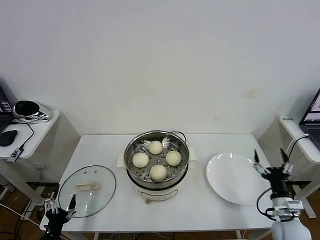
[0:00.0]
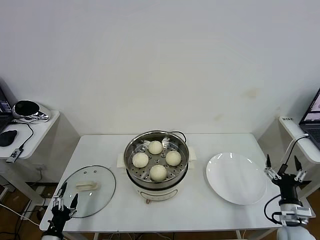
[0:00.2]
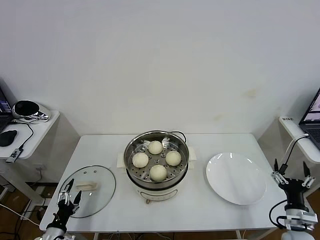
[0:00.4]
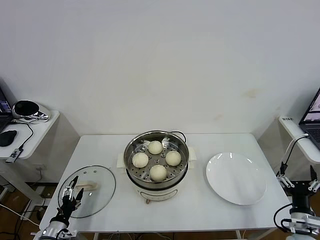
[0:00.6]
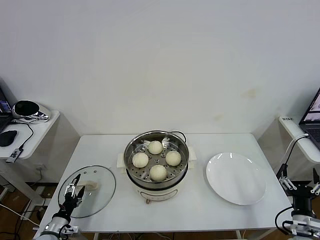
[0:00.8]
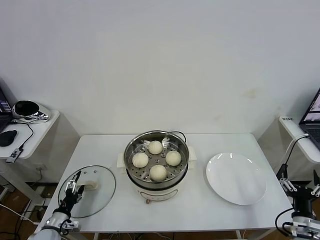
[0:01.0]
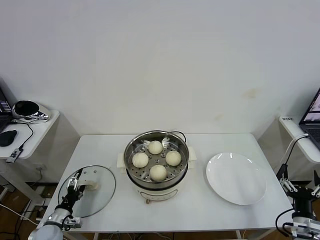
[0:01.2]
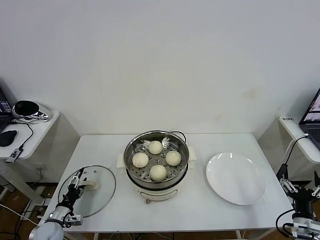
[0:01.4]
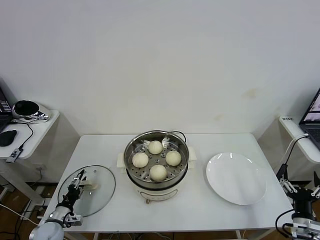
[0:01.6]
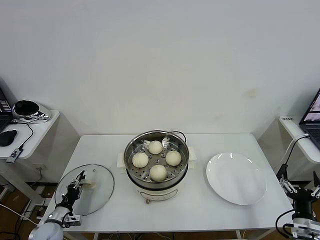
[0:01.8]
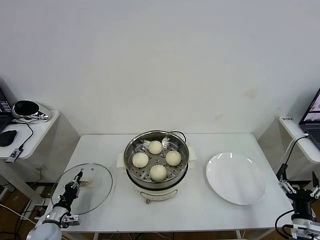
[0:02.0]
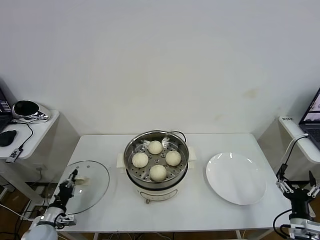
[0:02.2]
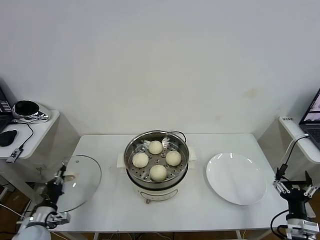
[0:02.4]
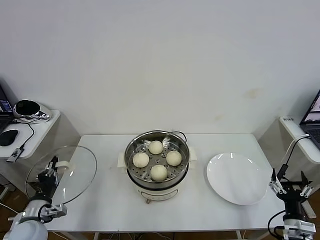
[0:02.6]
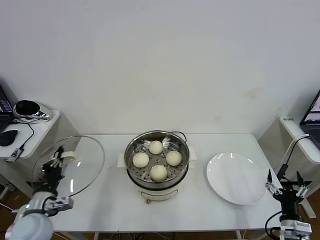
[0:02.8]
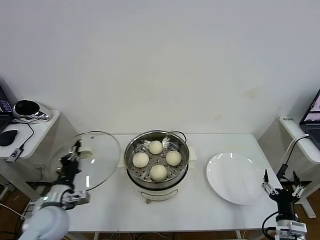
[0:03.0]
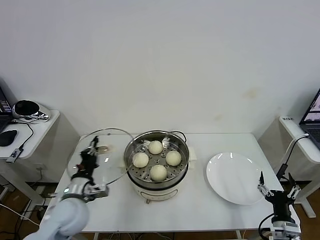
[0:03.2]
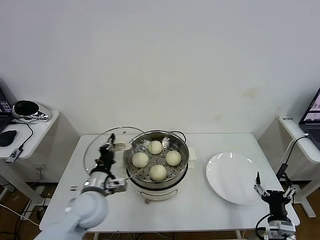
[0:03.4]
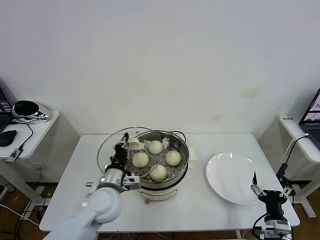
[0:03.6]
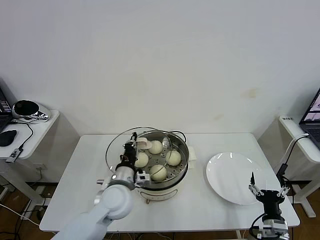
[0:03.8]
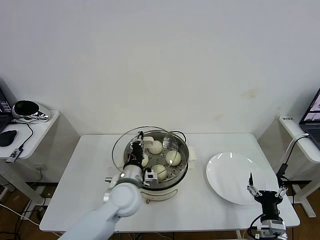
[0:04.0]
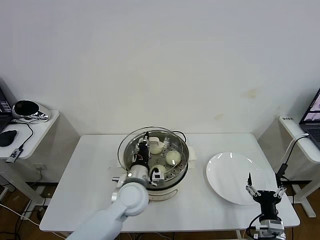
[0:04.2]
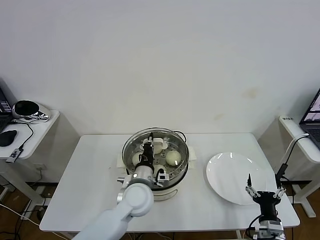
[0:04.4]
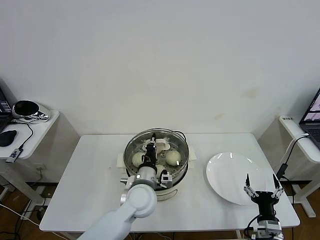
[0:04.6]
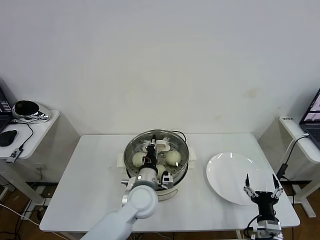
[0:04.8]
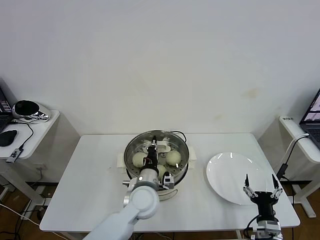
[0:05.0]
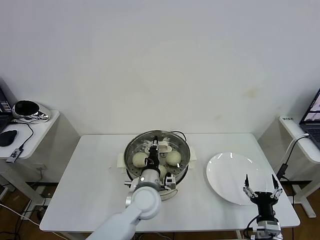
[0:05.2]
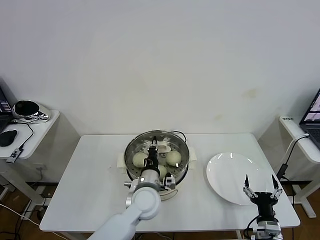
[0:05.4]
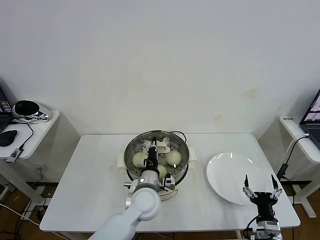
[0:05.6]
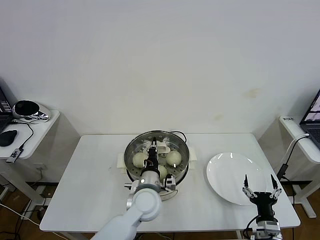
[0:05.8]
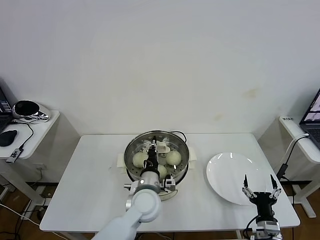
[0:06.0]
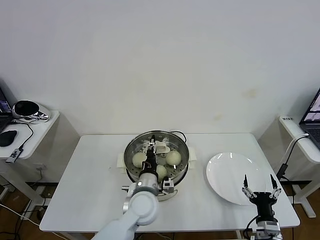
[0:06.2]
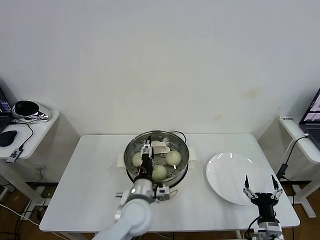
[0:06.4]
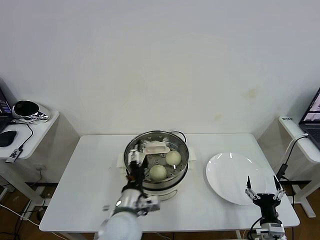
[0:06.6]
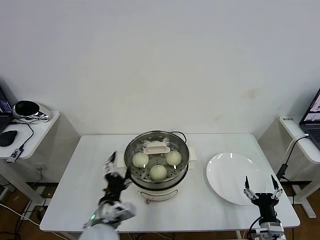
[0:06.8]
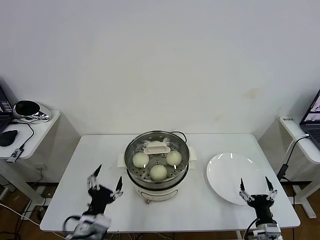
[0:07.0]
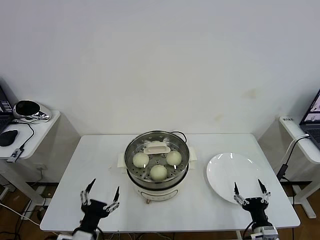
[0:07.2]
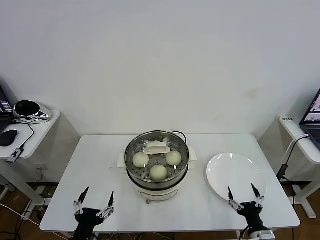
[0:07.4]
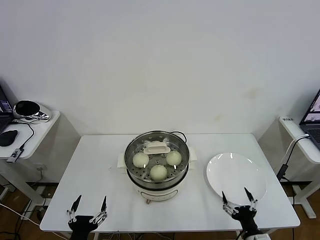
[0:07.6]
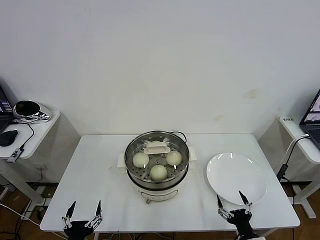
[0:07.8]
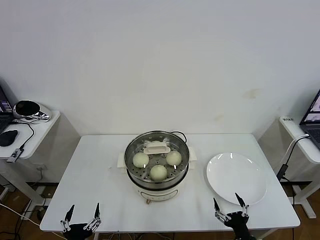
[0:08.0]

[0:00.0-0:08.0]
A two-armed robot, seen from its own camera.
Task of the whole recording: take steamed baozi put them in steamer then cover it.
Step, 0:00.0 to 0:02.0: Grasp the pot lid with left gripper.
Step, 0:02.2 to 0:06.2: Place the pot lid on the steamer with left gripper.
0:00.0 to 0:01.6: The right gripper is displaced backward by approximately 5 cm; the left gripper goes approximately 15 cm forward, and closes.
0:01.6 to 0:03.2: The left gripper is displaced upward and to the right by roughly 25 cm, and closes, while the right gripper goes approximately 5 cm to the left.
0:03.2 to 0:04.8: The left gripper shifts about 20 cm to the right.
0:04.8 to 0:06.4: The left gripper opens.
0:06.4 to 0:08.0: The right gripper moves some 5 cm, while the left gripper heads backward and to the left, covering approximately 30 cm.

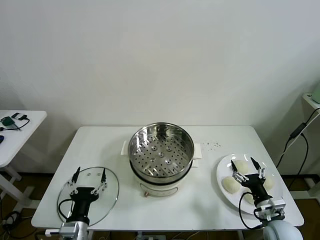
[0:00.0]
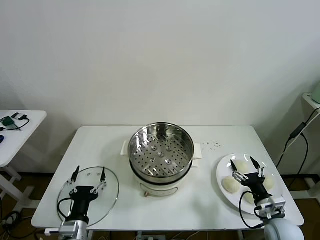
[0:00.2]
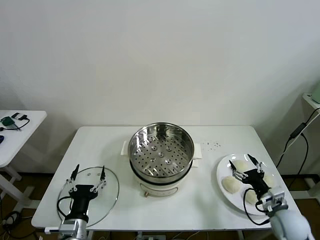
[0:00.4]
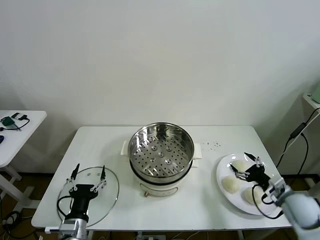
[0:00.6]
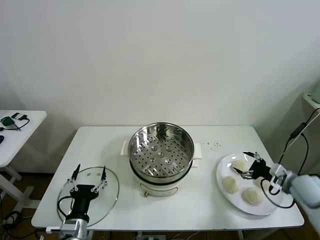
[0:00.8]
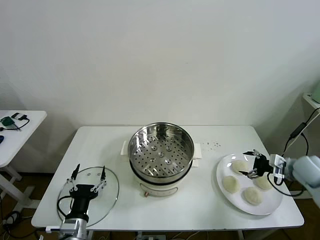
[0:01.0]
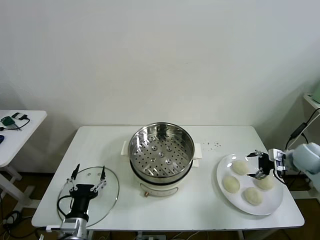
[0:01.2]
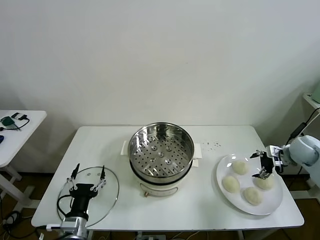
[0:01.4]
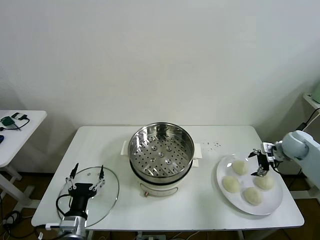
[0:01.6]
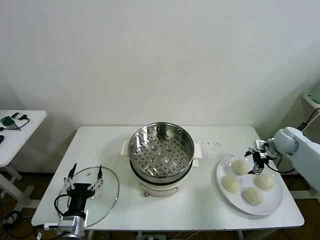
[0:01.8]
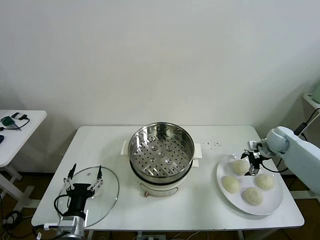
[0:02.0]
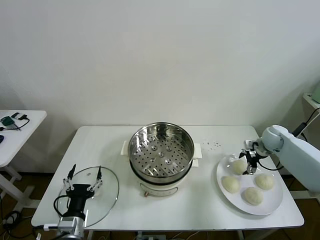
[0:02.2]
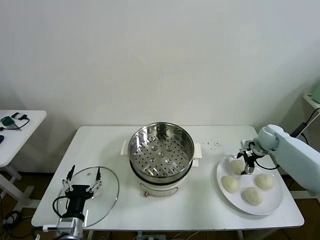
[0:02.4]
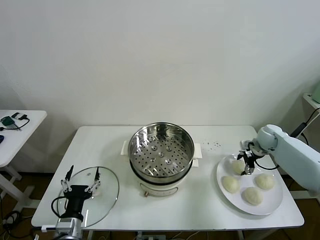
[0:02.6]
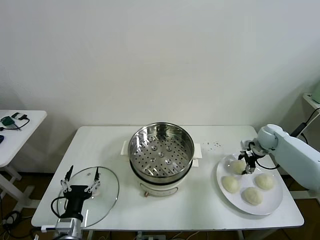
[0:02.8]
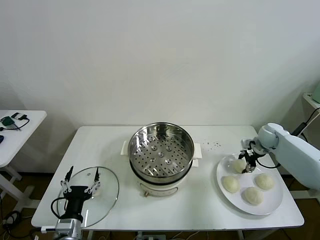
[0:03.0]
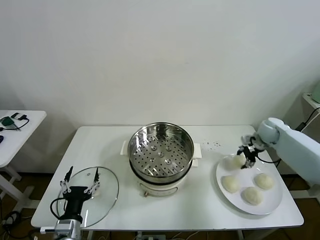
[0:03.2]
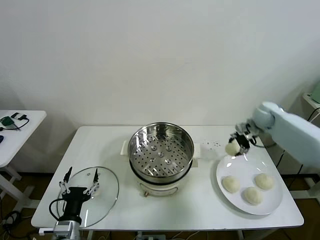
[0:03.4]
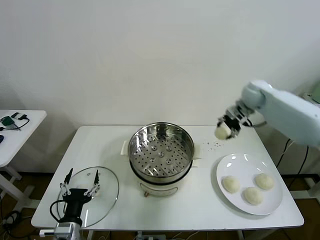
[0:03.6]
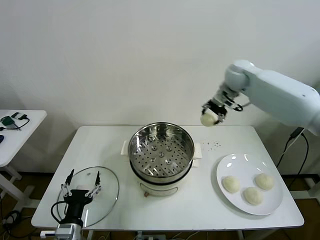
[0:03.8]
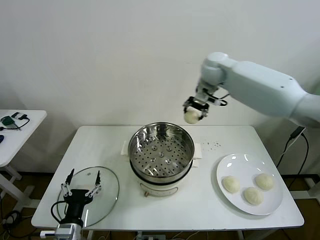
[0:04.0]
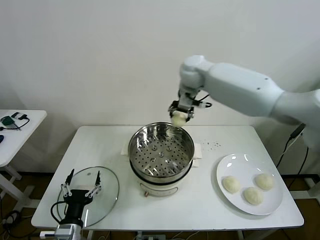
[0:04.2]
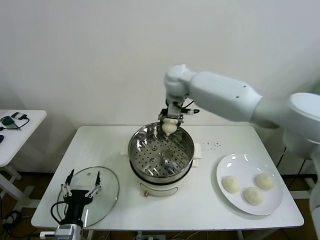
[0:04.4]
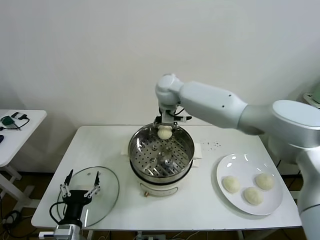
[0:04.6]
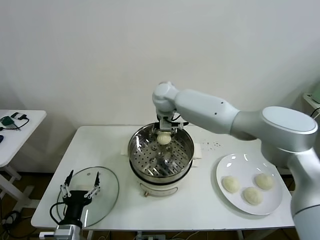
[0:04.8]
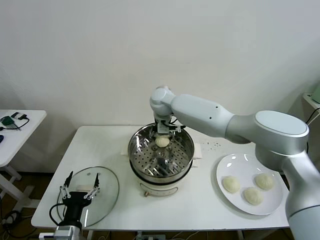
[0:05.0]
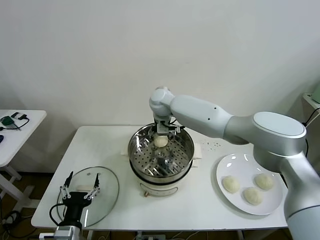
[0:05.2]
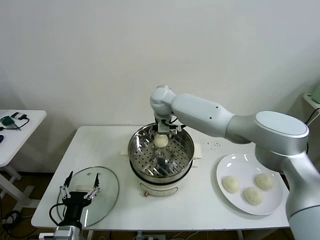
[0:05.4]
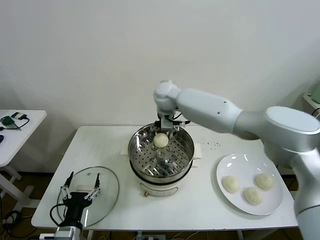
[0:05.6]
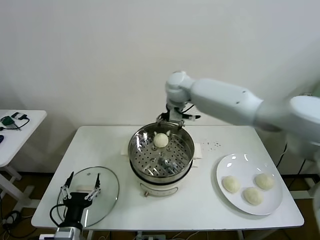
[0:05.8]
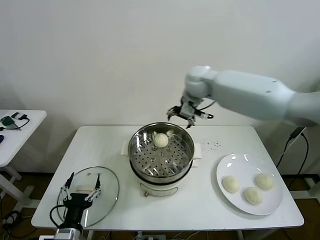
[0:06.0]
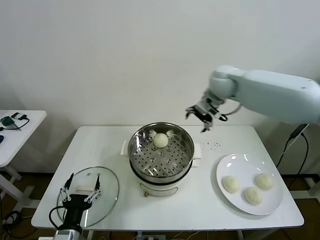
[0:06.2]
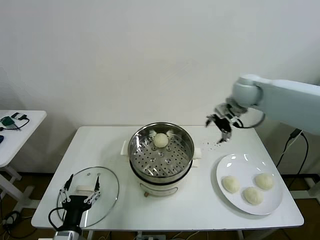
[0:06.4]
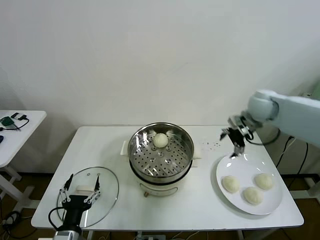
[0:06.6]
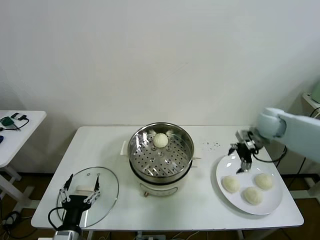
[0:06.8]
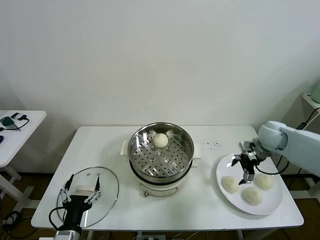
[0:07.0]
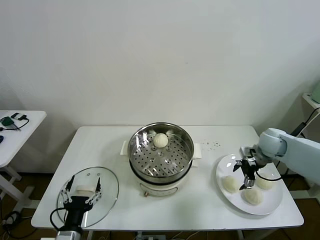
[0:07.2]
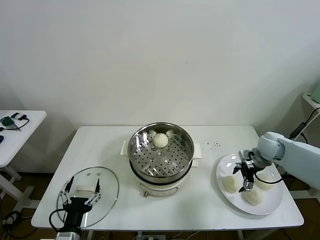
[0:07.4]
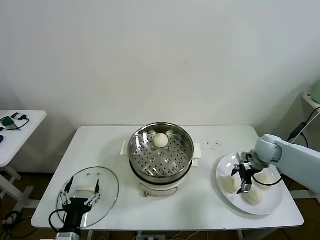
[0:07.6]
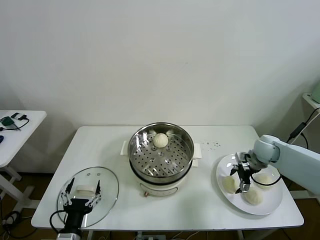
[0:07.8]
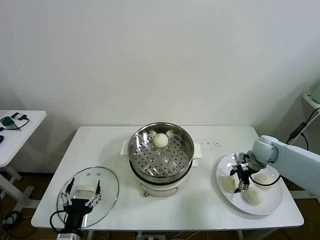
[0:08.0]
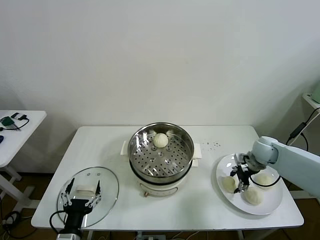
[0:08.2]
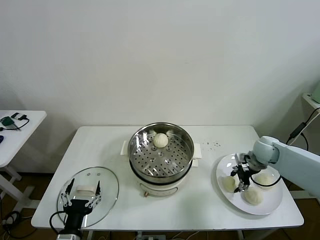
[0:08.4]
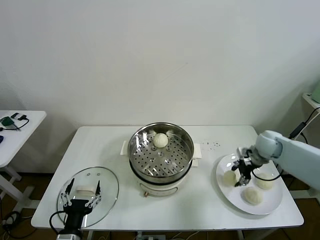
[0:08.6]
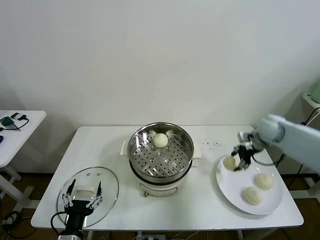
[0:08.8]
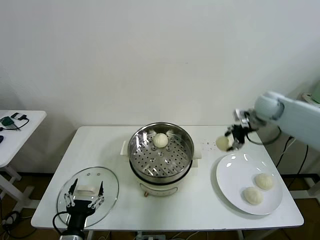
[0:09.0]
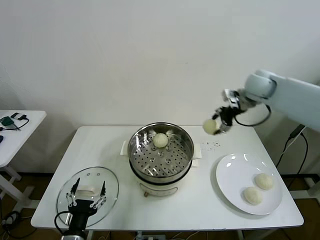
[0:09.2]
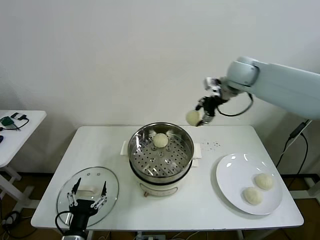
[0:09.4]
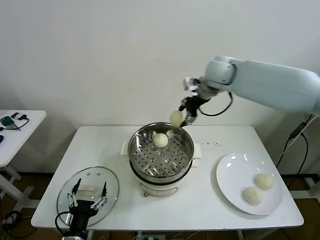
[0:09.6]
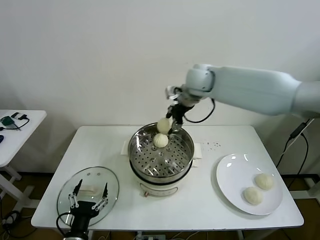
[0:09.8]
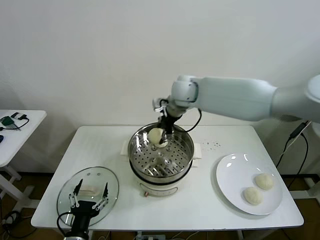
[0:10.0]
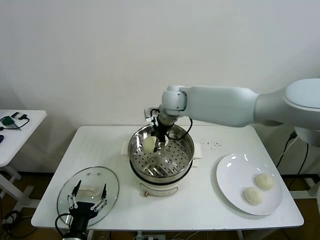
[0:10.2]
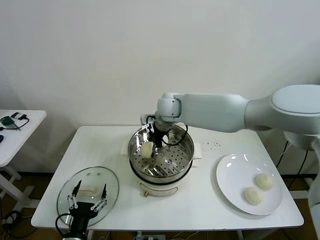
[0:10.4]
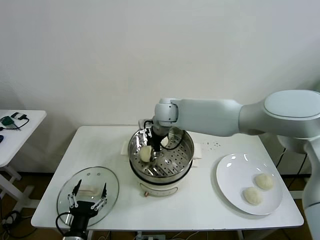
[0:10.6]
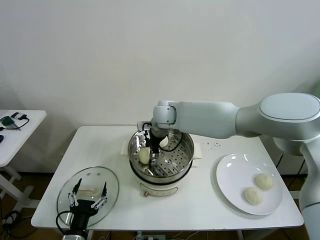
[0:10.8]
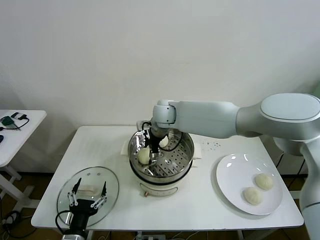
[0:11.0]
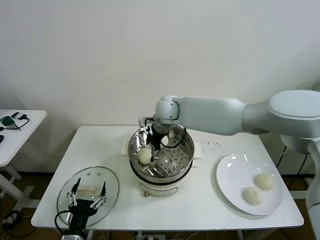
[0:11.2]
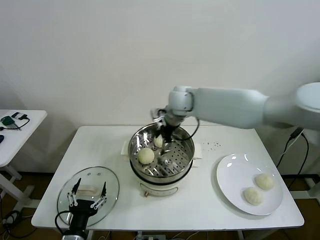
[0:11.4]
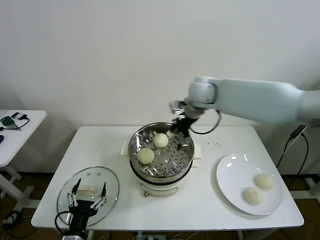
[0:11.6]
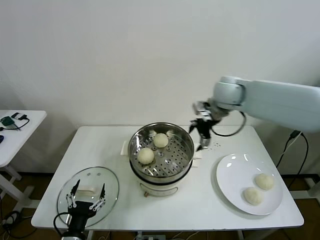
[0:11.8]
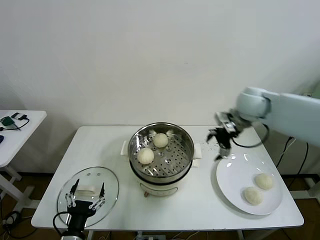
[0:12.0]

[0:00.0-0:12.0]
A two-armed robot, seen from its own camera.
Task of the whole recording: take steamed baozi put them in steamer then cover it.
Step, 0:00.0 to 0:02.8: Grasp the baozi in the plate with right gripper.
Step, 0:03.0 to 0:05.4: Place the baozi on the steamer with right gripper.
Step, 0:05.6 to 0:08.4: Grasp the baozi in the plate with right gripper.
Step, 0:08.6 to 0:10.8: Place the baozi on the steamer with right gripper.
0:01.6 to 0:03.0: The right gripper ends up approximately 5 cm from where it was, and closes.
0:03.0 to 0:04.4: The right gripper is displaced to the left by about 40 cm.
0:04.4 to 0:06.0: The right gripper heads to the right, covering some 20 cm, and opens up.
0:06.0 to 0:07.6: The right gripper heads downward and to the right, covering some 30 cm.
0:07.6 to 0:09.0: The right gripper heads upward, covering about 20 cm, and closes its fingers.
0:09.0 to 0:10.4: The right gripper travels to the left by about 30 cm.
0:10.4 to 0:12.0: The right gripper moves to the right, approximately 30 cm, and opens its fingers.

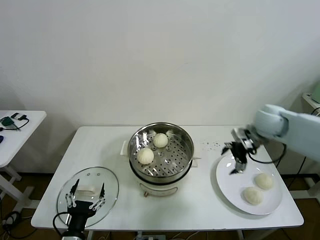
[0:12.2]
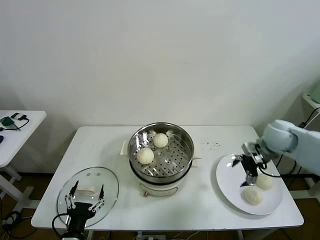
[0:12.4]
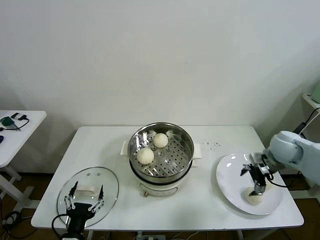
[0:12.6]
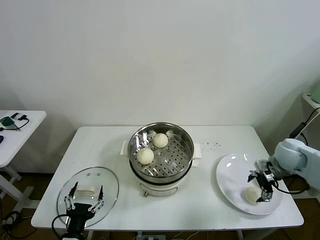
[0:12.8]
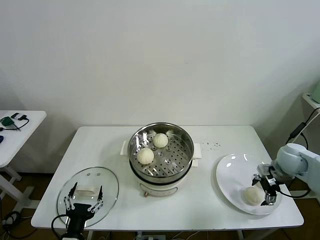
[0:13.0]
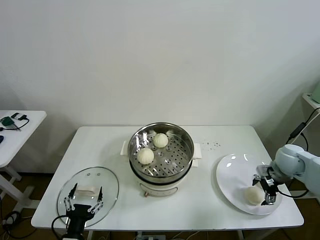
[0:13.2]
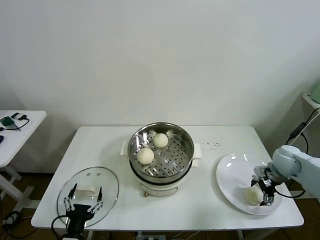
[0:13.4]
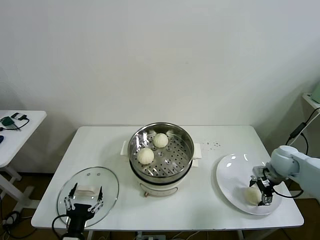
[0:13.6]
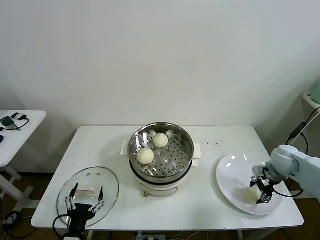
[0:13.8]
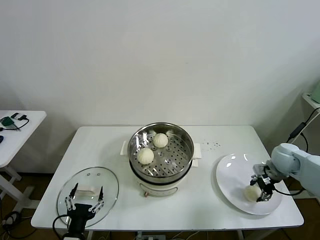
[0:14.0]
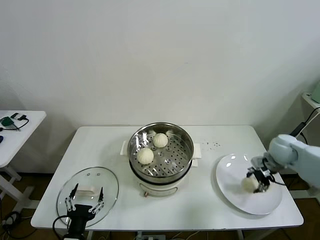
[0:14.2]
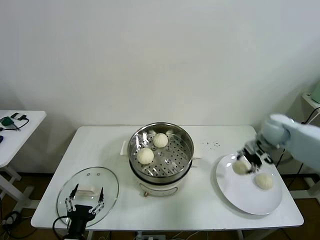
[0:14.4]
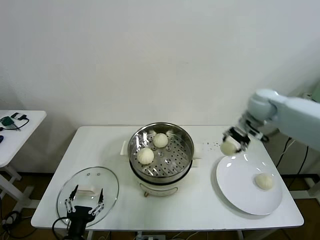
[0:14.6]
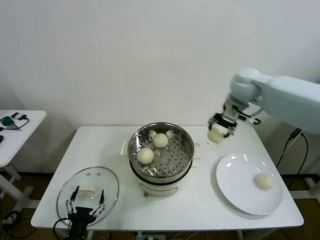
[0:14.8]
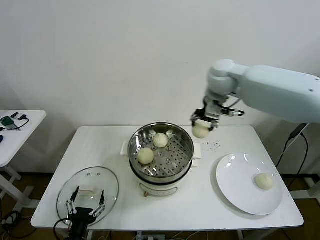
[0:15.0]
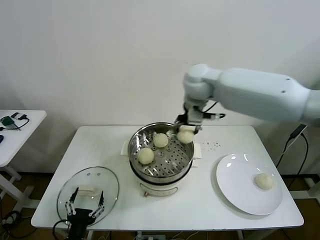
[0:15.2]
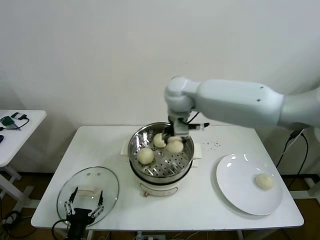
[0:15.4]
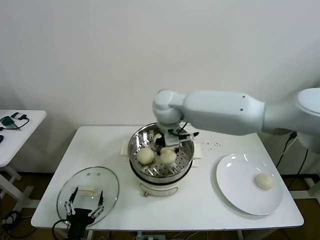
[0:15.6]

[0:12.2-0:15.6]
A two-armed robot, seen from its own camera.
Task of the whole recording: take steamed baozi put them in steamer then cover it.
Step, 0:12.2 to 0:14.0: Grasp the baozi in the plate with right gripper.
0:12.2 to 0:13.8: The right gripper shifts roughly 15 cm downward and to the right, and closes its fingers.
0:13.8 to 0:15.6: The right gripper travels to the left by roughly 40 cm.
